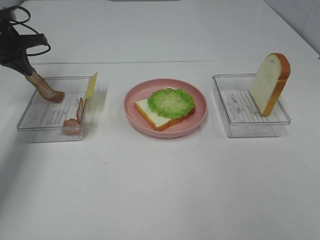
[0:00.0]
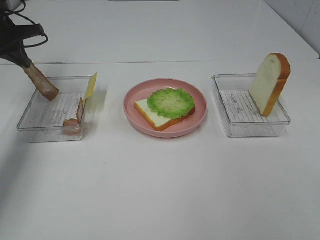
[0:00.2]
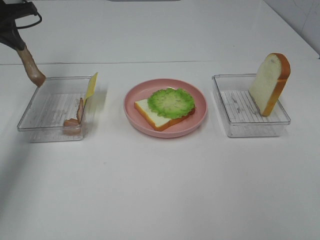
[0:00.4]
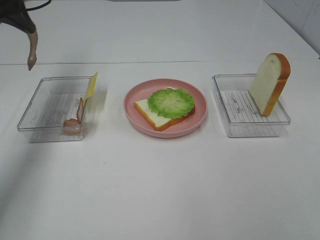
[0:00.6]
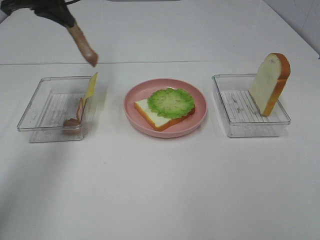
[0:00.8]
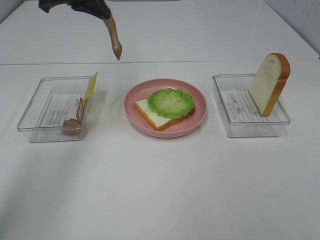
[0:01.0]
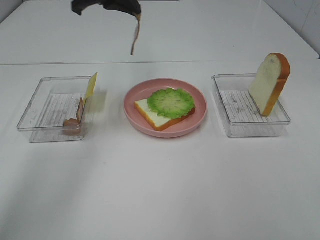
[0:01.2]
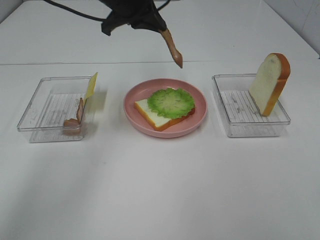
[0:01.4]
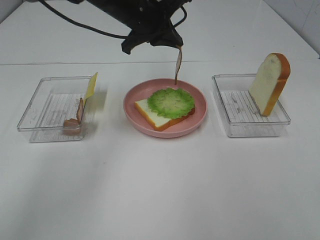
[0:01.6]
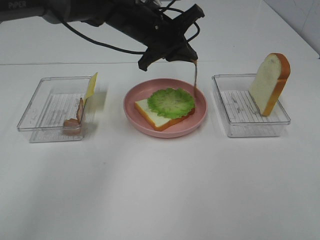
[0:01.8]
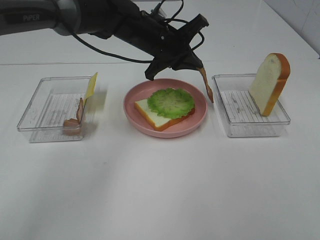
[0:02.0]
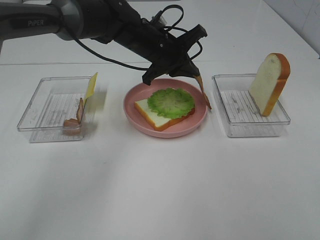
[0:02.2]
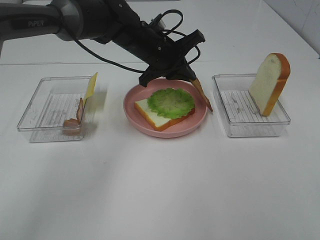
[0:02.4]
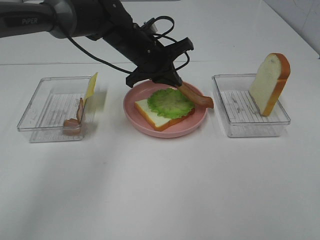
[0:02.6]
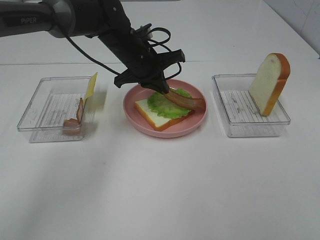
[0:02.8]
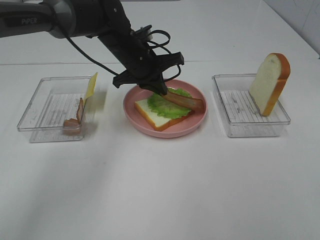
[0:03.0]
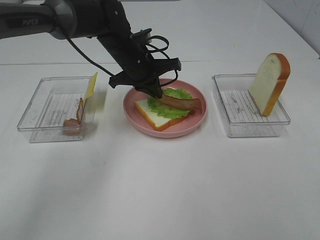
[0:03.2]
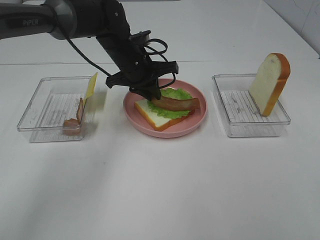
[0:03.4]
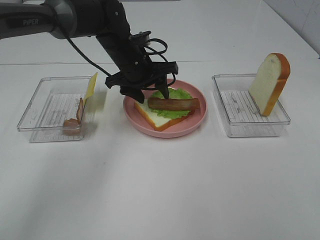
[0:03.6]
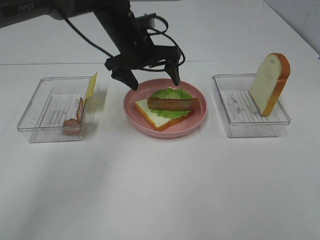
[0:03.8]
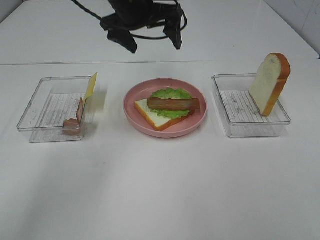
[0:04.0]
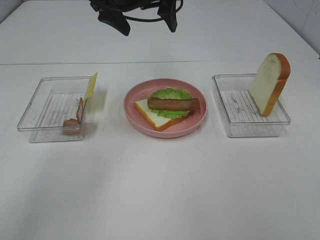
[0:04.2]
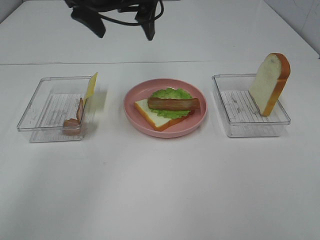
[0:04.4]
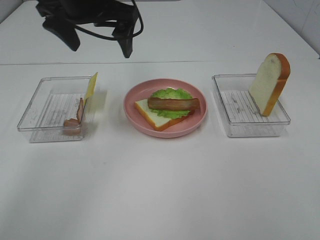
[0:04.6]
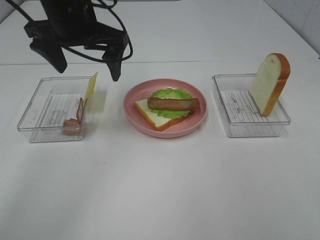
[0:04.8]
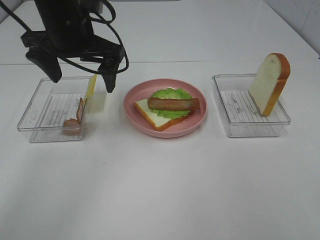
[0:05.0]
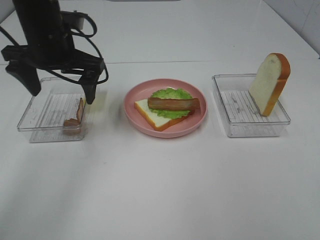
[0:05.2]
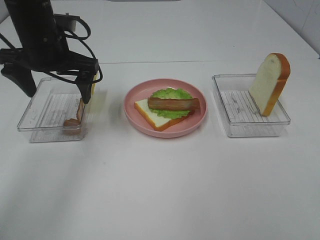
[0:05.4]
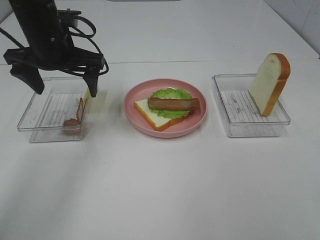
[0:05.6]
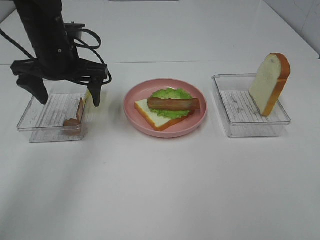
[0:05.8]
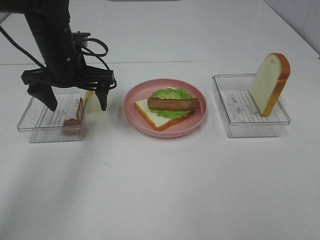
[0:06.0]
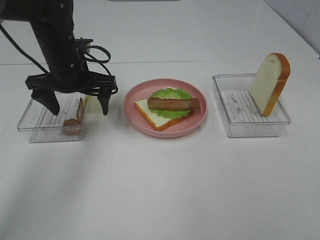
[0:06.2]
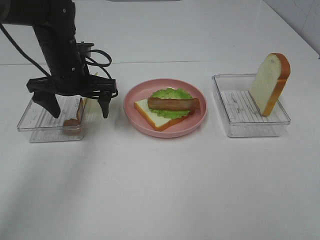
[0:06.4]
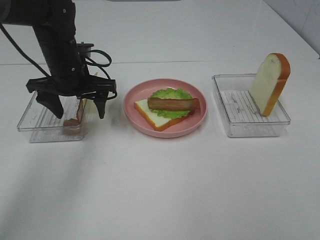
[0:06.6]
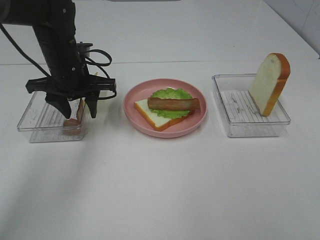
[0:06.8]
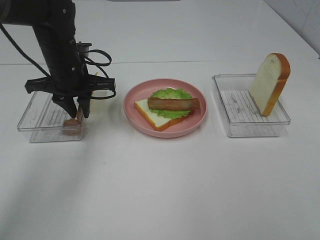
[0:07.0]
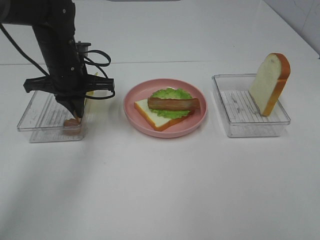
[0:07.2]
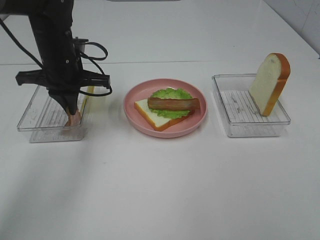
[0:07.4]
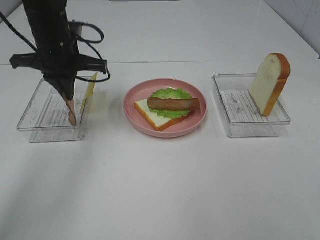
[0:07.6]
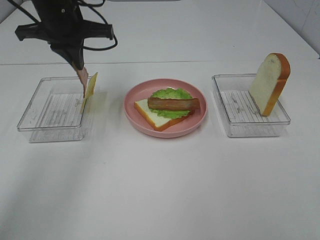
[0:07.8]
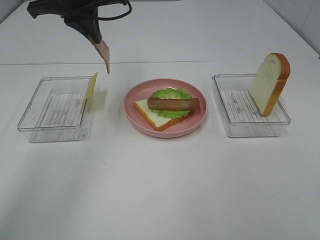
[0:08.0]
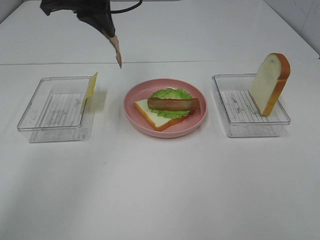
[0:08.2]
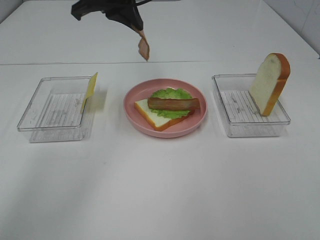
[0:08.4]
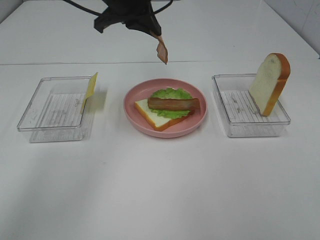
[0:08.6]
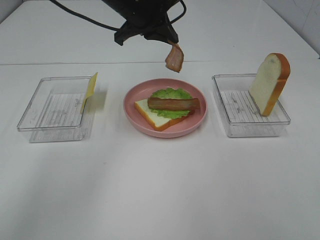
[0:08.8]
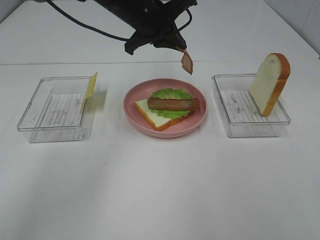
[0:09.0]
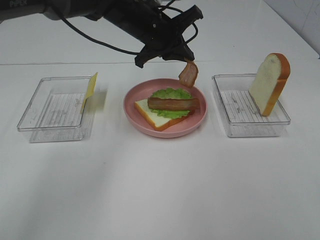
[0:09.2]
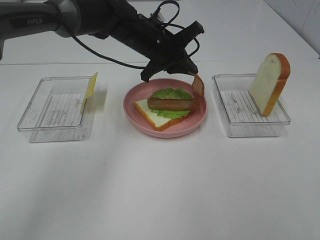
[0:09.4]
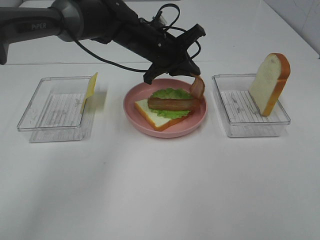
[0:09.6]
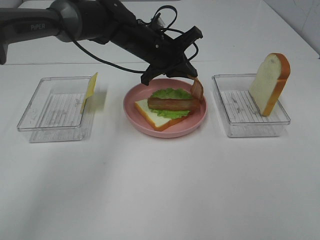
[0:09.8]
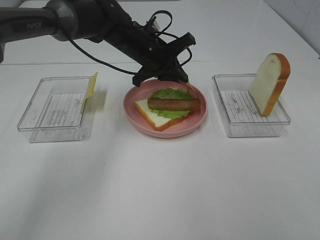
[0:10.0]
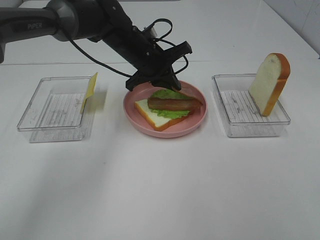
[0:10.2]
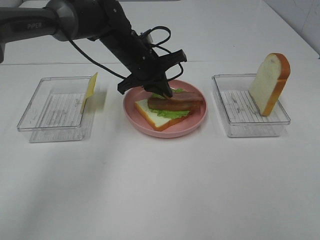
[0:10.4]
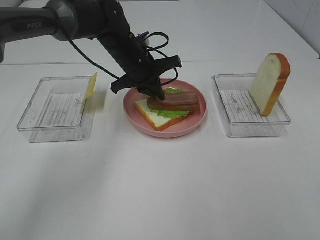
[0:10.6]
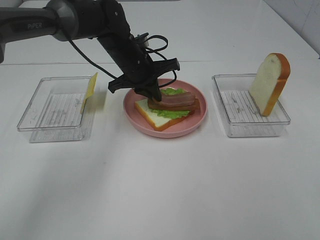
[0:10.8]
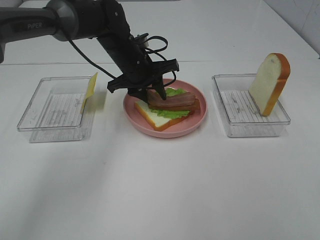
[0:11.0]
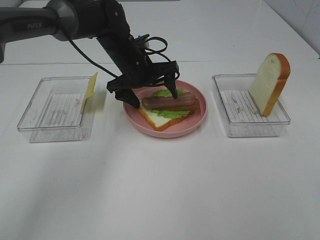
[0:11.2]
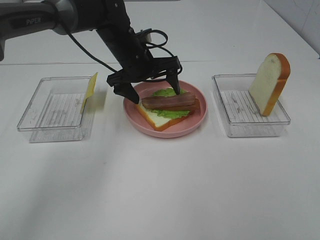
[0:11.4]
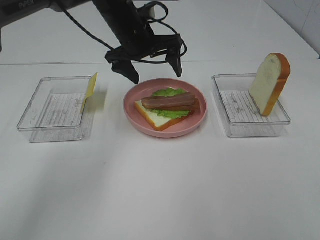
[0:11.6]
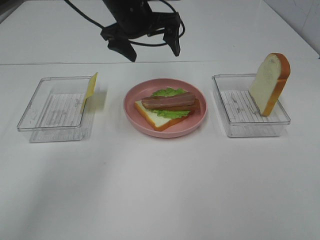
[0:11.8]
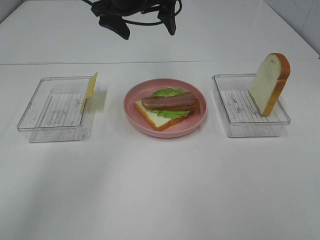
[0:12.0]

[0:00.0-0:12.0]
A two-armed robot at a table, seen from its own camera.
Task of the whole recording: Make sandwiches.
Step, 0:00.0 to 0:03.6: Left hand:place bacon on lettuce slice.
Step, 0:03.8 to 0:07.2: Left hand:grab the bacon.
Step, 0:07.4 to 0:11.4: Left hand:place bacon on bacon.
0:00.0 to 0:01.6: The left gripper shifts roughly 30 cm to the right.
0:01.6 to 0:03.0: The left gripper travels downward by approximately 10 cm.
0:03.0 to 0:04.4: The left gripper moves upward, some 15 cm, and opens.
0:04.4 to 0:06.0: The left gripper is displaced downward and to the left by about 15 cm.
0:06.0 to 0:07.6: The left gripper closes.
0:07.6 to 0:09.0: The left gripper shifts about 15 cm to the right.
0:09.0 to 0:10.4: The left gripper is displaced downward by roughly 10 cm.
0:10.4 to 0:12.0: The left gripper goes about 15 cm upward, and opens up.

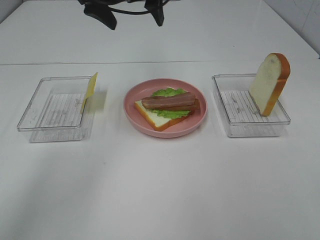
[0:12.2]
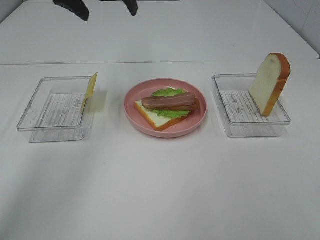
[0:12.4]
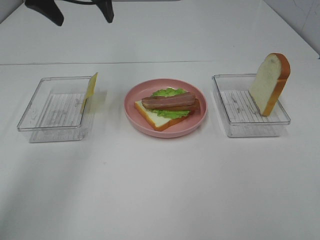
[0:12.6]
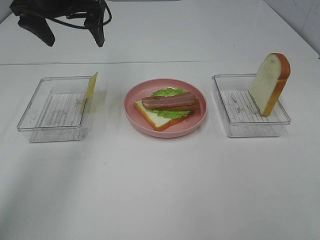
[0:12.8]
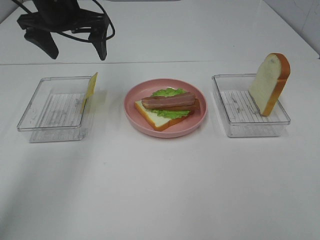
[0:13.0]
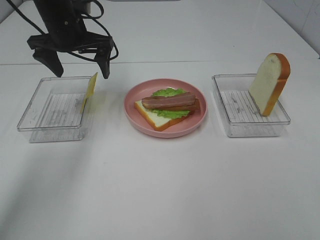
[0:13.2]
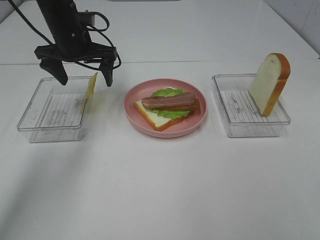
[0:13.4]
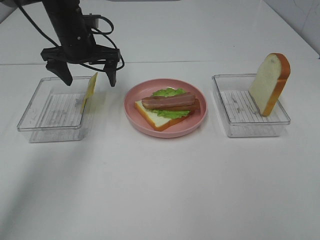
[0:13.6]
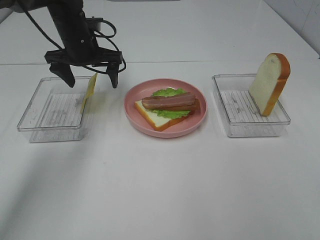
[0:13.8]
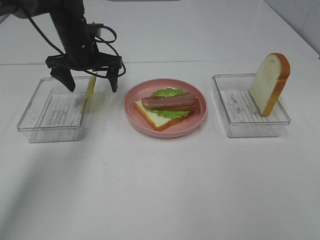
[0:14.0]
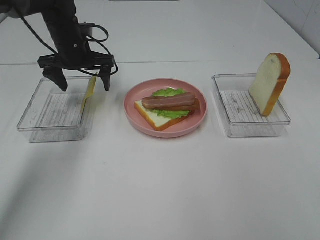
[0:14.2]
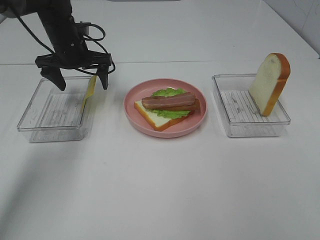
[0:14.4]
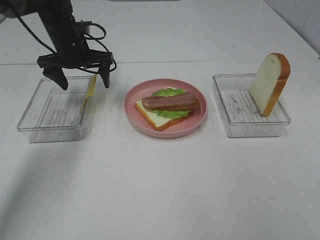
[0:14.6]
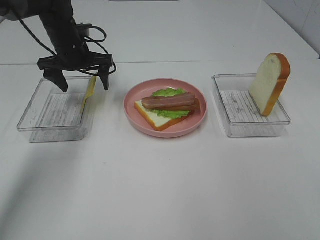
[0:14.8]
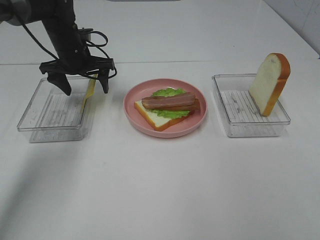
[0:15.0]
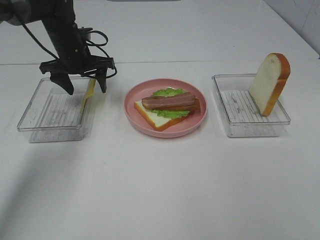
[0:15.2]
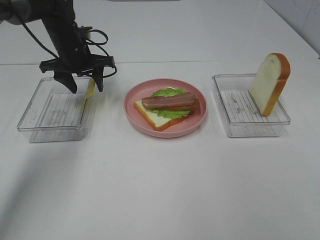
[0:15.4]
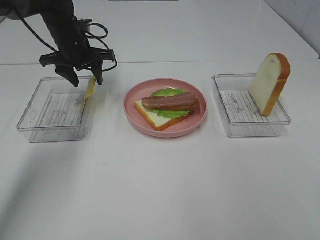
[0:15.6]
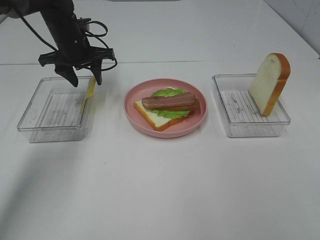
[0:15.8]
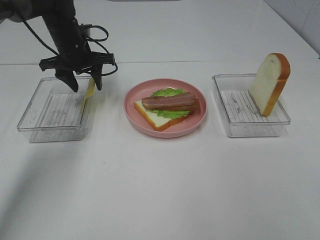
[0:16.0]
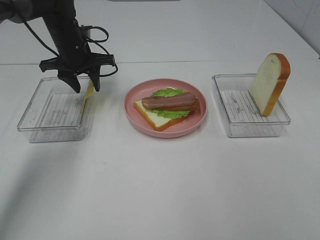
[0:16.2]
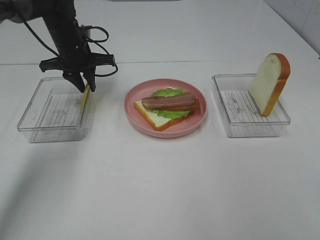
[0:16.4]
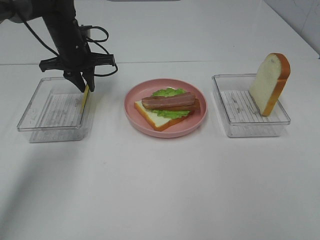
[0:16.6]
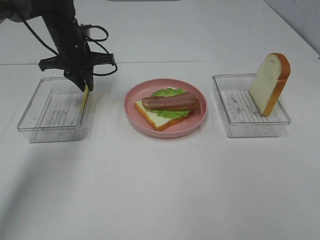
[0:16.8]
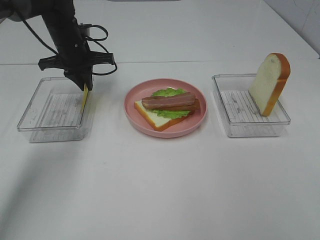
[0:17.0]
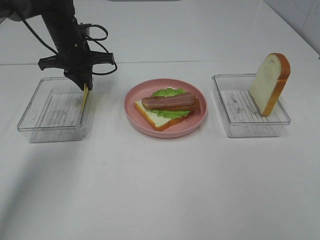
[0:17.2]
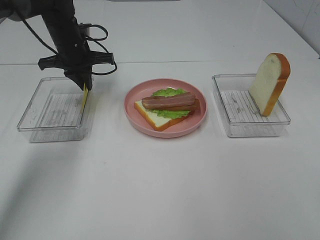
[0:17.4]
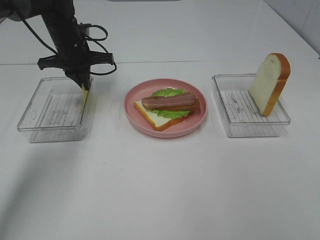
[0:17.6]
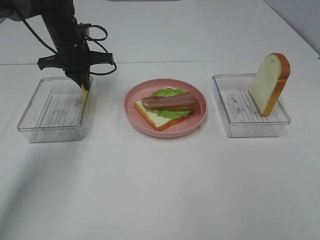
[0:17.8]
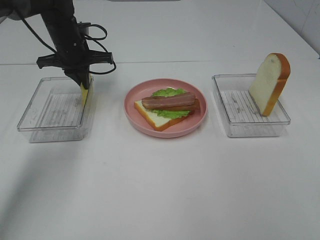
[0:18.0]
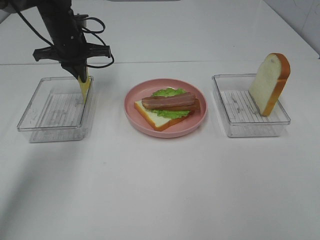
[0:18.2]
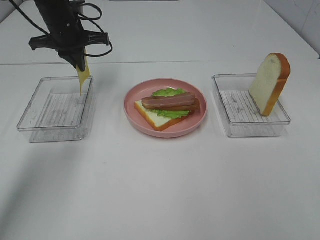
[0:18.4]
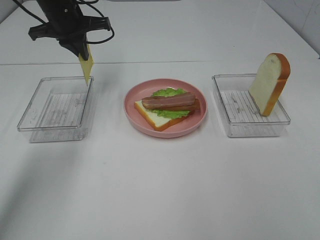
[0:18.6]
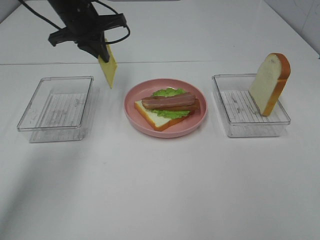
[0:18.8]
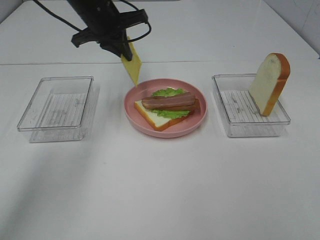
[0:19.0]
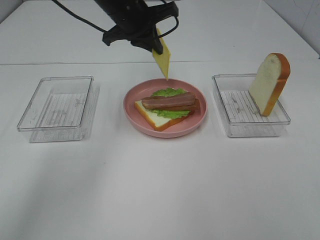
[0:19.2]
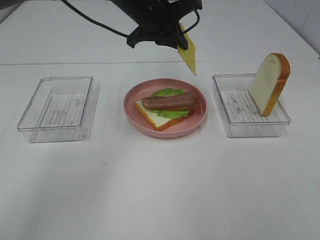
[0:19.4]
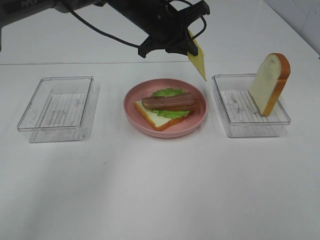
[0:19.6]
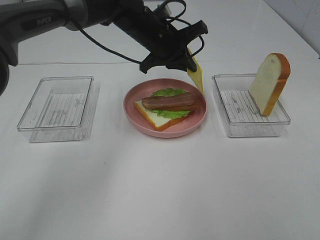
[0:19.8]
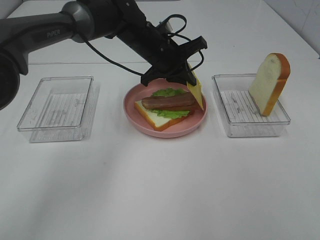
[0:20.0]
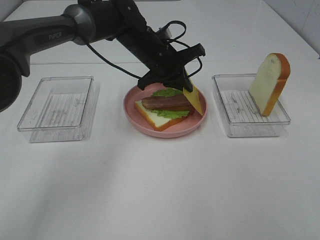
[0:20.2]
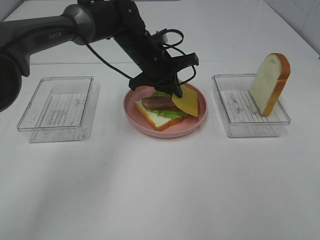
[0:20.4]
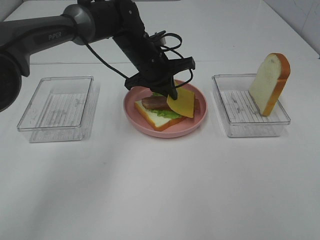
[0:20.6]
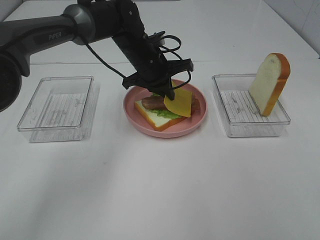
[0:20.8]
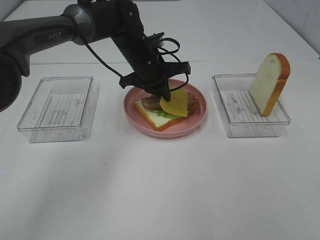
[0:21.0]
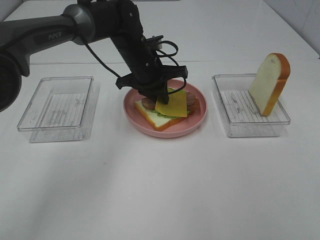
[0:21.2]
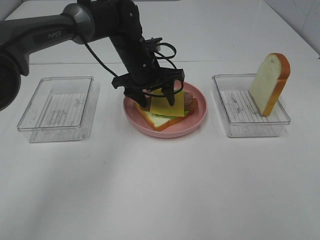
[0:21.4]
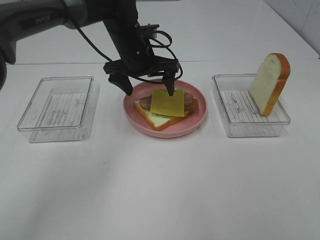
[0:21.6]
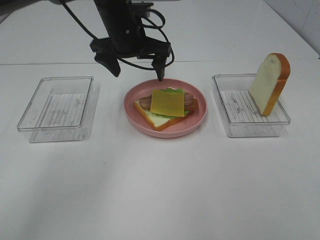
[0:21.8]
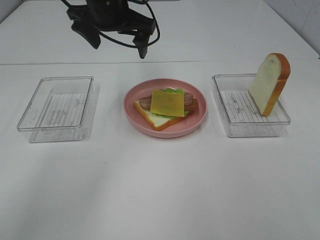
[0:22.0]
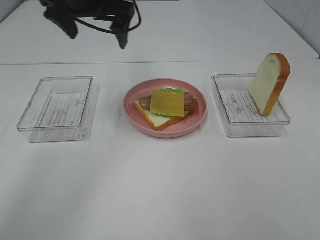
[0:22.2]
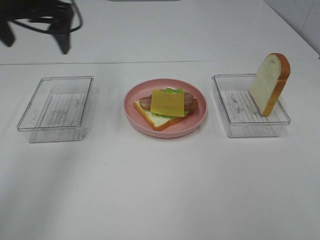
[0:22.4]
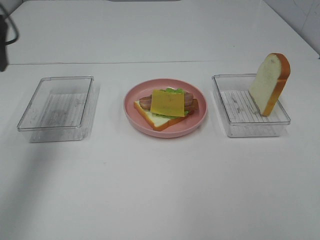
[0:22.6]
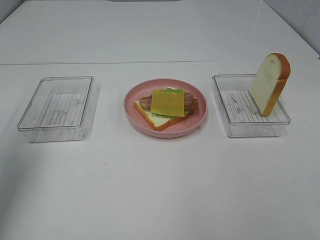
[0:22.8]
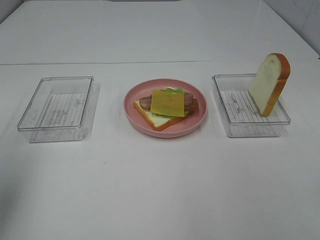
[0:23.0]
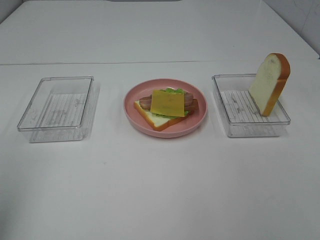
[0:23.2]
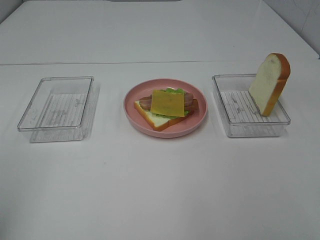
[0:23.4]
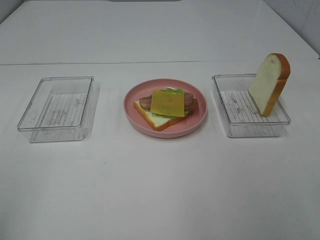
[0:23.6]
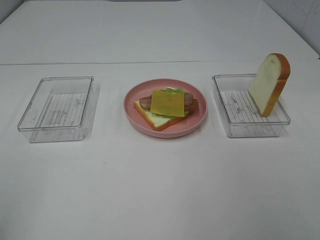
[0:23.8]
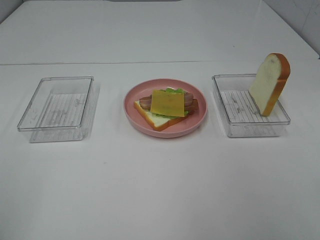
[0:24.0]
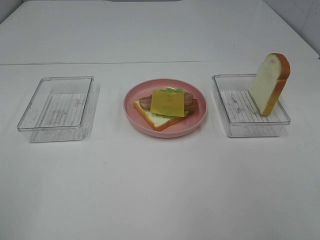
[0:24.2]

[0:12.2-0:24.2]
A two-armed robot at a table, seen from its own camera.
Task of the whole recording: Make sandwiches.
Step, 0:12.2 to 0:17.2: Left hand:grab the cheese slice.
Step, 0:17.4 to 0:21.6: Left hand:place the cheese slice on top of the bacon.
0:12.2 to 0:13.8: The left gripper goes roughly 15 cm downward and to the left.
0:13.8 to 0:15.2: There are only small adjustments of the grippers.
0:15.2 to 0:16.6: The left gripper closes up.
0:16.6 to 0:18.2: The grippers move only a little.
0:18.2 to 0:19.8: The left gripper shifts approximately 20 cm to the right.
0:19.8 to 0:21.2: The left gripper shifts by about 5 cm.
0:21.2 to 0:22.6: The left gripper is displaced to the left, upward and backward by roughly 35 cm, and opens its fingers.
0:22.6 to 0:24.2: The left gripper heads backward, covering about 30 cm.
